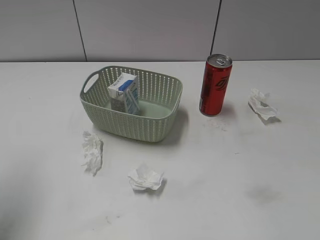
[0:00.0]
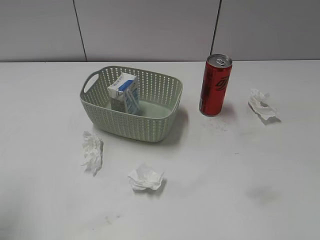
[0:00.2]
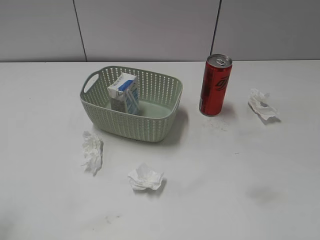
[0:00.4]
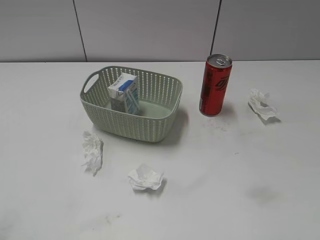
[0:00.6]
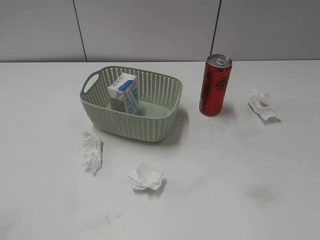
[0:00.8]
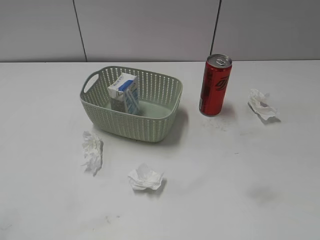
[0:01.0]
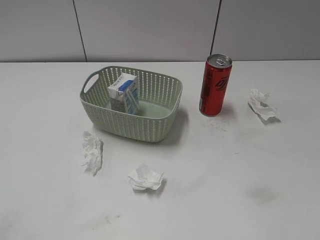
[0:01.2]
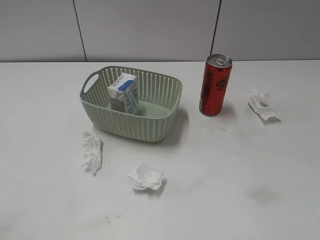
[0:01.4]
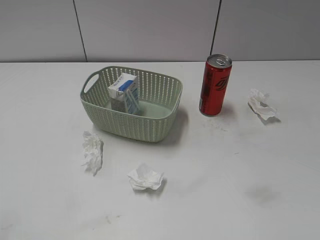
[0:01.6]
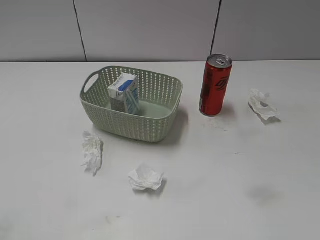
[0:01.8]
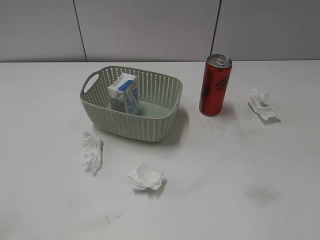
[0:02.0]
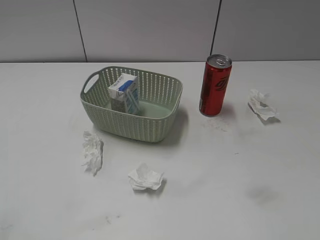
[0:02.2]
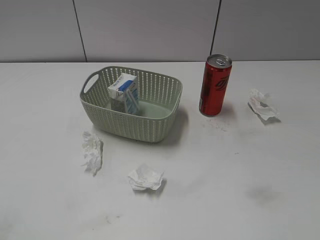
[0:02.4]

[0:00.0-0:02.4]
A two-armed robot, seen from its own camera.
0:00.0 to 0:01.2: The left gripper moves backward, approximately 20 cm.
